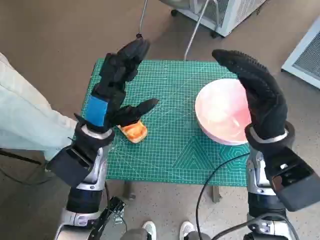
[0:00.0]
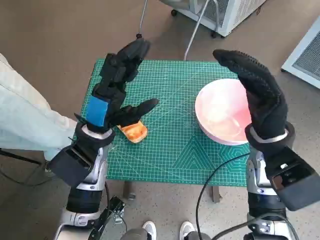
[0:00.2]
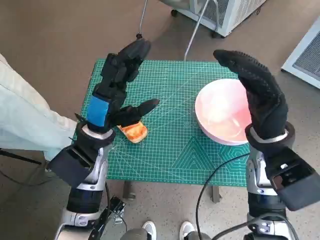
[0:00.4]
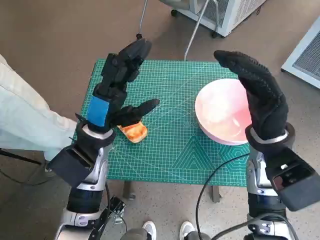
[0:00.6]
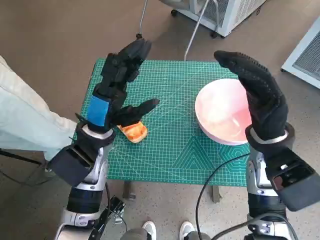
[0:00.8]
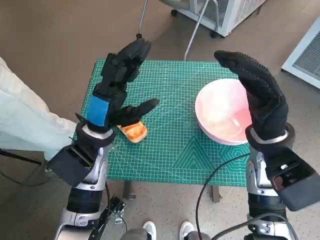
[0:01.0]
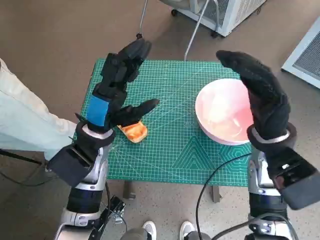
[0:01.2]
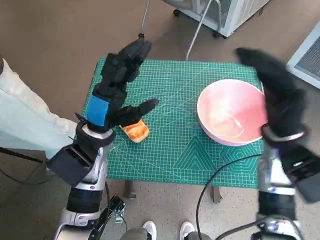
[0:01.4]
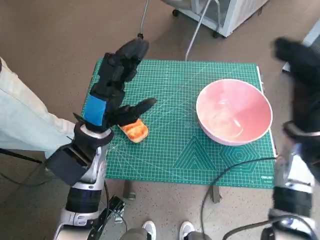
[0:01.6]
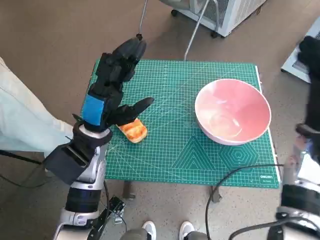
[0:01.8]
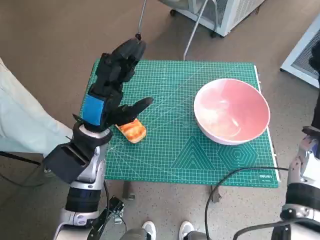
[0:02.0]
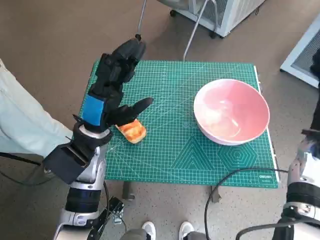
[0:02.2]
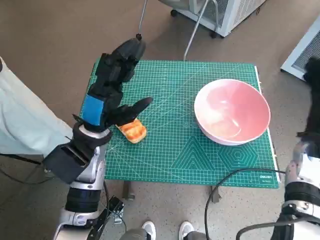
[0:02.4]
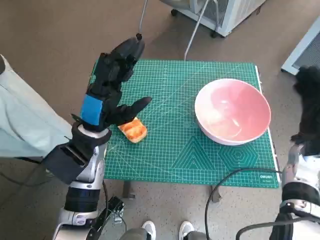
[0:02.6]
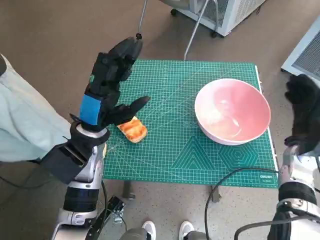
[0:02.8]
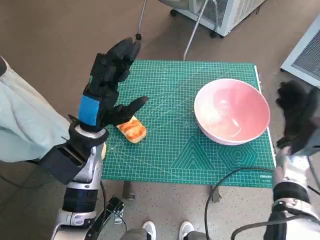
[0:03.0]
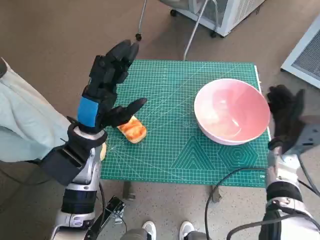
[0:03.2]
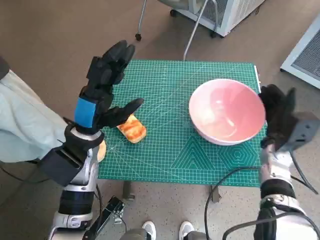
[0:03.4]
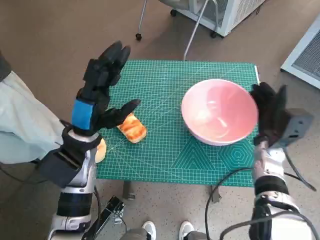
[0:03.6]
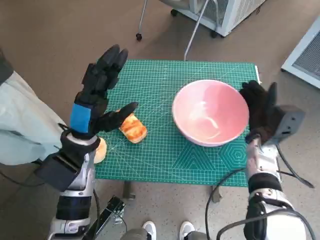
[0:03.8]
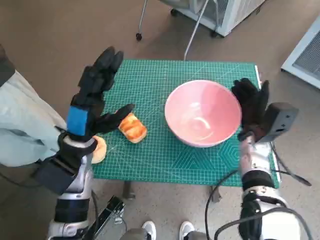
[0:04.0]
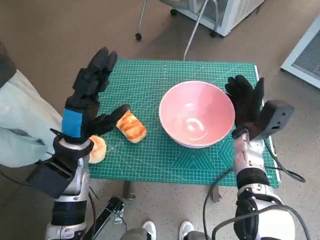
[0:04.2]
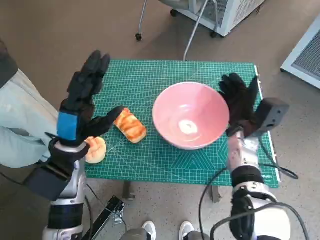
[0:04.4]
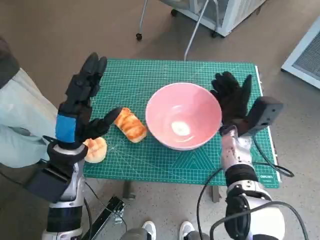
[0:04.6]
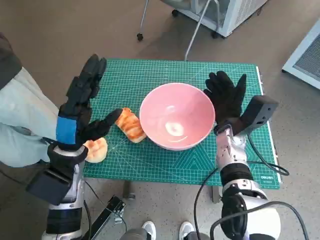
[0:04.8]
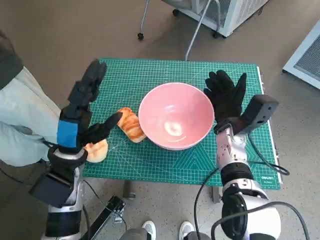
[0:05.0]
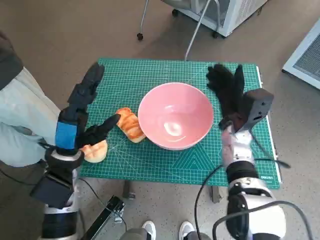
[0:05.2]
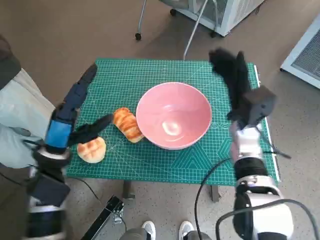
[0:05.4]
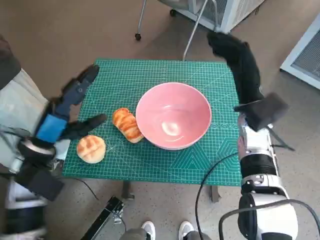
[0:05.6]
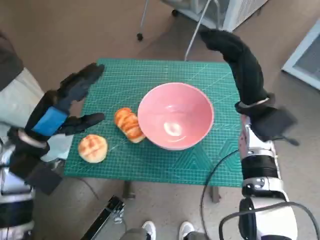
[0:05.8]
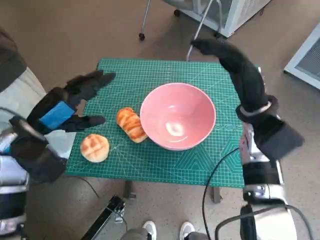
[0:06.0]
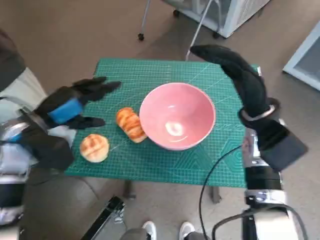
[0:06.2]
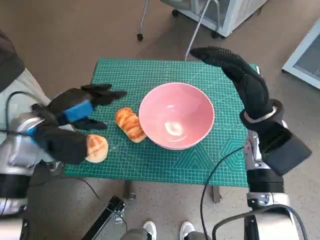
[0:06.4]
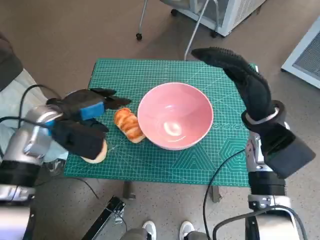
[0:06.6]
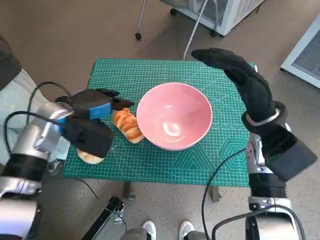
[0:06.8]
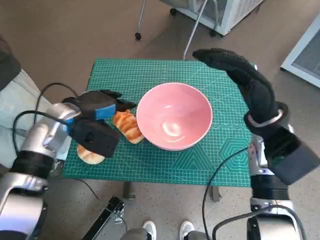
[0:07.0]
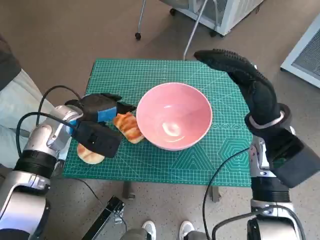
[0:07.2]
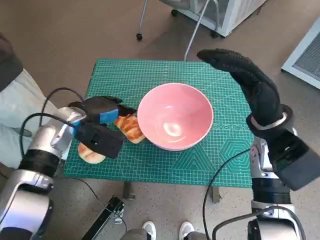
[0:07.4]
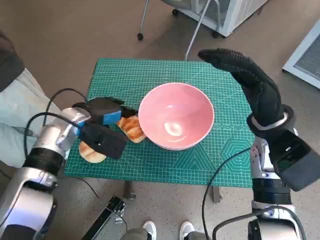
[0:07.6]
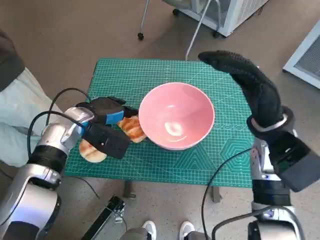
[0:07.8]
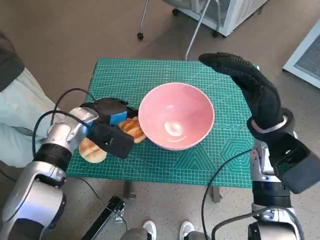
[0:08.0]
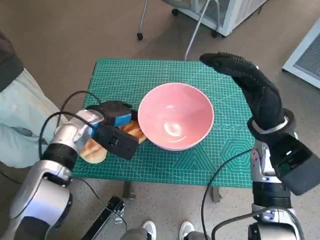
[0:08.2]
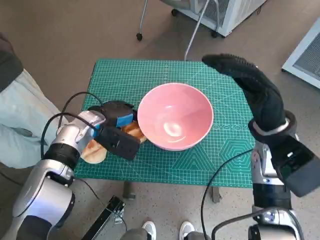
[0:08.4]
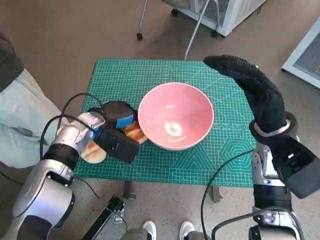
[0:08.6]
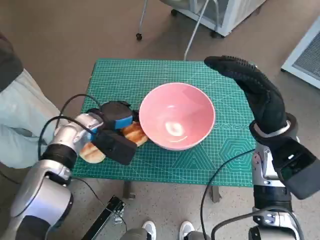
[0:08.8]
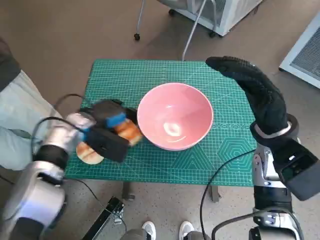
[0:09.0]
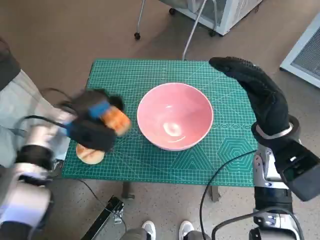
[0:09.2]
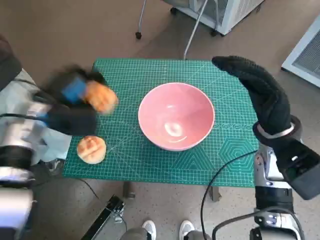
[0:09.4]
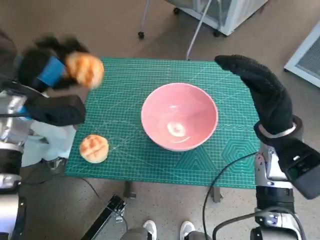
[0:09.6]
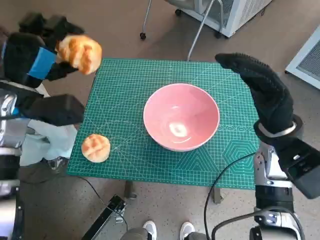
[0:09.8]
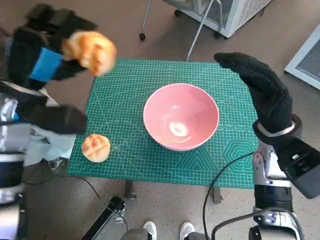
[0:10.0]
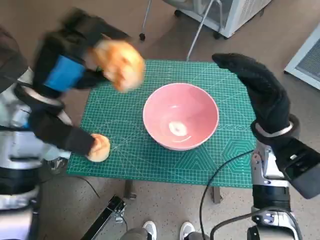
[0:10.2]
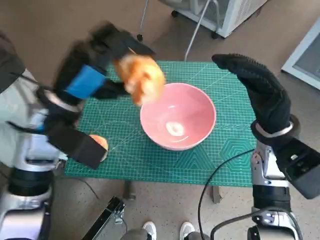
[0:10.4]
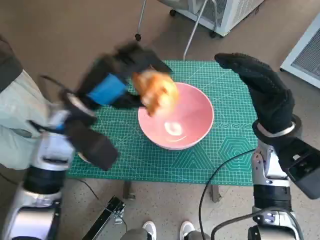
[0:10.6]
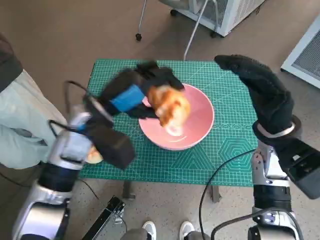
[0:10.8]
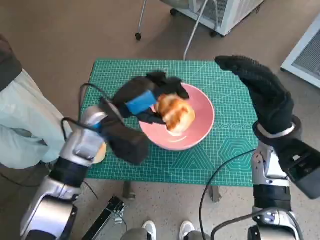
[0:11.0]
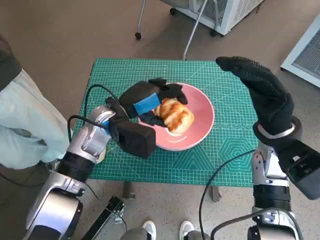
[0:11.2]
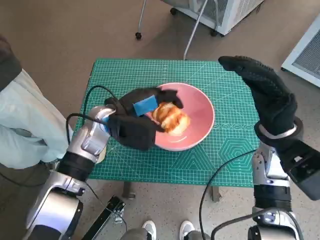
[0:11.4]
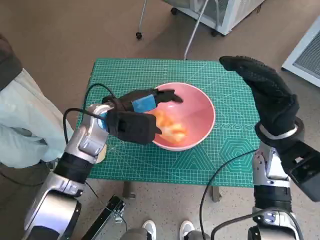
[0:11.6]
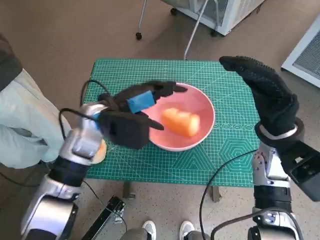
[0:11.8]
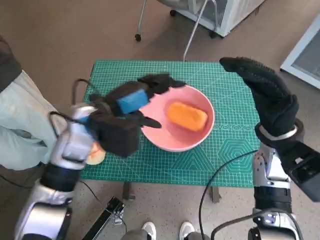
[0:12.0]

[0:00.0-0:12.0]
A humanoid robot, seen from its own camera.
Task of the whole recording: Push the bowl to the center of the table and put the bread into the bowl.
Step, 0:00.0 to 0:05.0: Move the pink bowl to the center of table with right hand.
Step, 0:05.2 to 0:08.6: Grasp the long bread with left hand.
Step, 0:08.8 to 0:11.8: Place the long bread in pink bowl with left hand.
0:01.6 to 0:03.0: The right hand goes approximately 10 cm downward.
0:03.0 to 0:04.4: The right hand moves to the left, some 10 cm.
0:04.4 to 0:06.0: The right hand goes roughly 10 cm upward. Meanwhile the left hand moves to the left, some 5 cm.
0:06.0 to 0:07.6: The left hand heads forward and to the right, covering some 10 cm.
0:09.0 to 0:10.4: The left hand goes some 15 cm upward and backward.

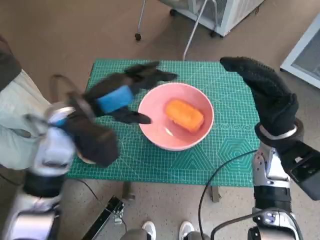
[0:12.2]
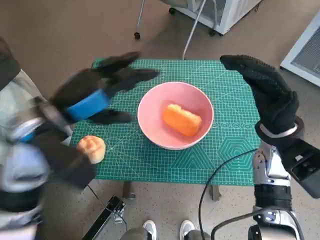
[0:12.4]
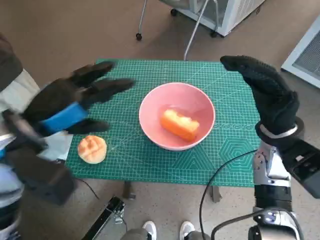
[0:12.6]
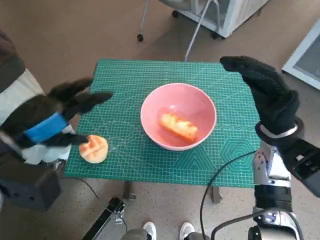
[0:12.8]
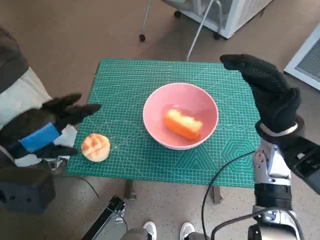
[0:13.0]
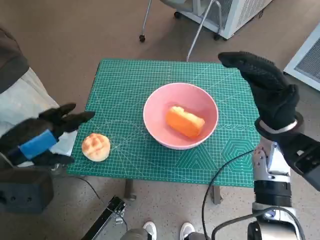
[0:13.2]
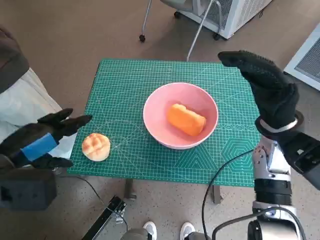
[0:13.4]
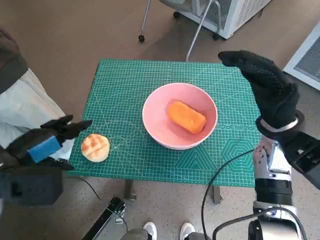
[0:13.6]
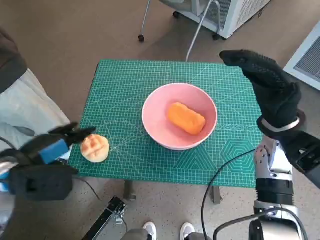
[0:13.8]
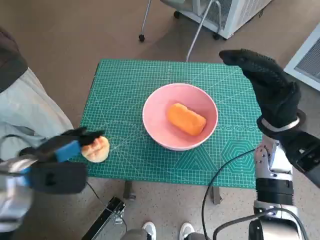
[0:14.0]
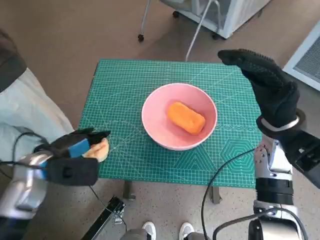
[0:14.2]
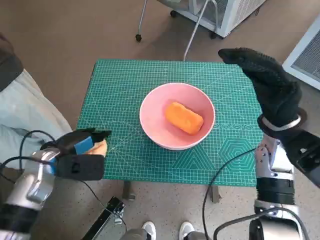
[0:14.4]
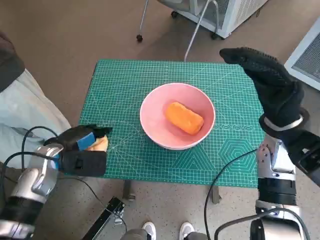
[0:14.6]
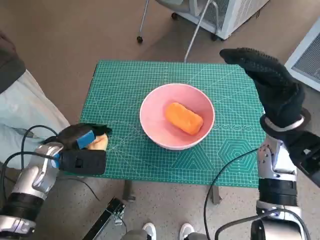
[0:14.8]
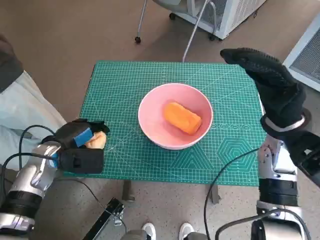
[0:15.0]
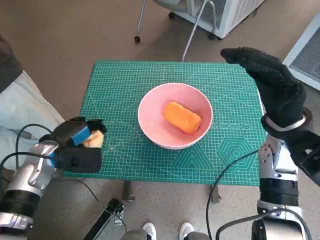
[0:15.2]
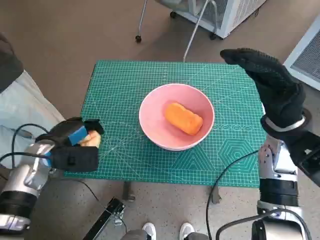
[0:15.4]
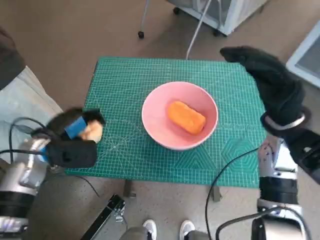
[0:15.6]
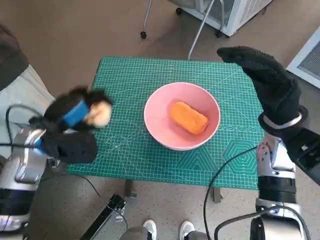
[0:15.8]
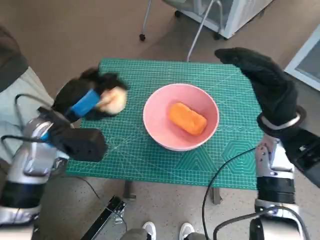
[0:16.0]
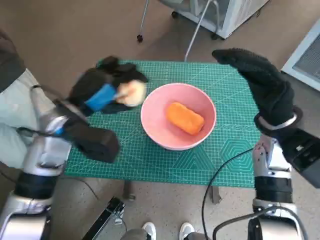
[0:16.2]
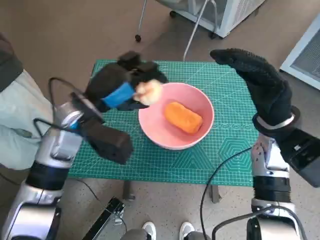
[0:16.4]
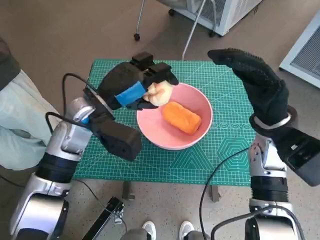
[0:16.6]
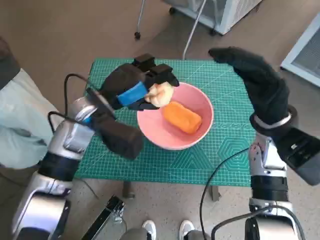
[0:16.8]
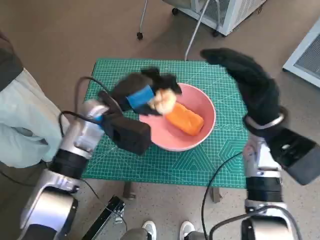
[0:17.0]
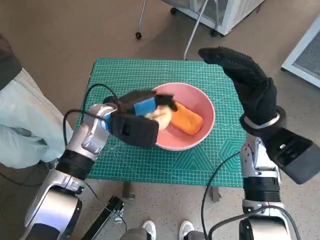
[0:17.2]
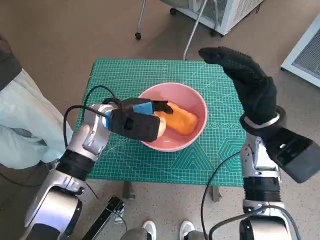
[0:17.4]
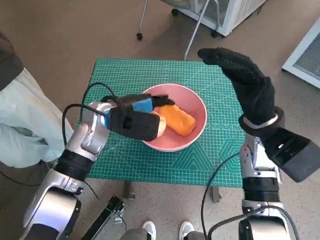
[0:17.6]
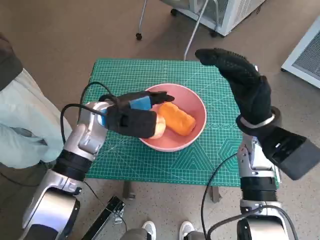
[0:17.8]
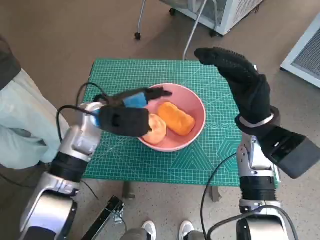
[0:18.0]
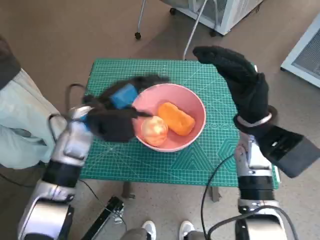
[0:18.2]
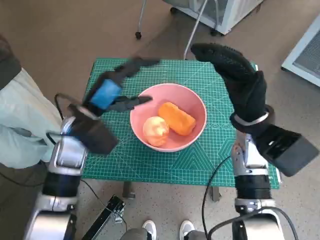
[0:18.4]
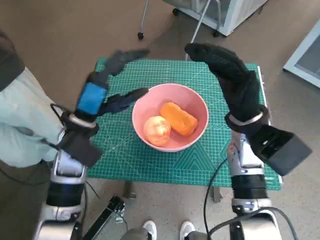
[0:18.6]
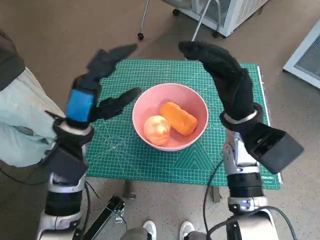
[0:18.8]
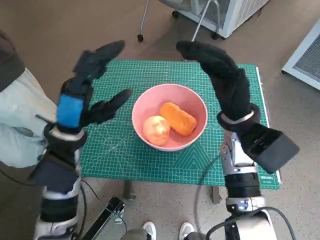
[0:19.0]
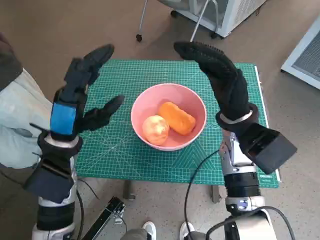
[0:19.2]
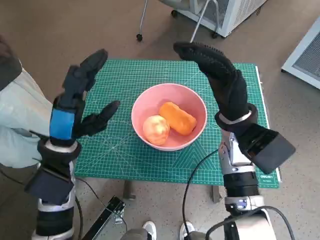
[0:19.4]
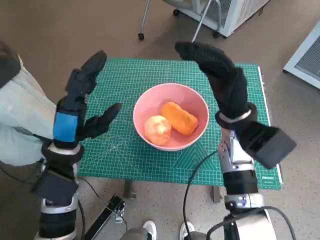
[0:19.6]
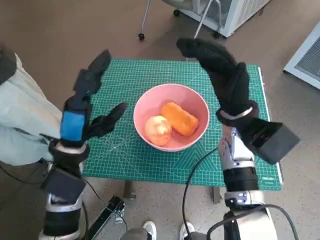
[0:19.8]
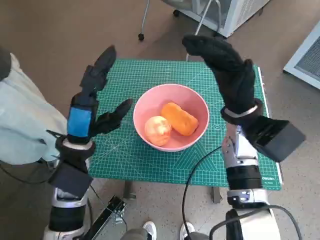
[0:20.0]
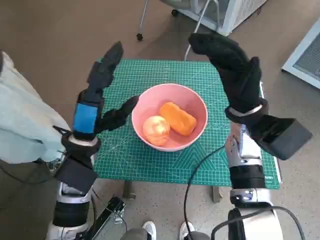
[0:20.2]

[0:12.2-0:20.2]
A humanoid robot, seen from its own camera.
Task of the whole recording: Push the bowl to the center of the table and put the bread into the bowl.
Step, 0:12.2 to 0:15.0: Grasp the round bread with left hand.
Step, 0:15.2 to 0:17.6: Place the round bread in pink bowl with left hand.
0:12.2 to 0:13.8: The left hand moves to the left and backward, roughly 15 cm.
0:13.8 to 0:15.4: The left hand goes roughly 10 cm downward and forward.
0:15.4 to 0:17.0: The left hand is displaced to the right, upward and forward by roughly 15 cm.
0:17.0 to 0:18.6: The left hand changes place by approximately 5 cm.

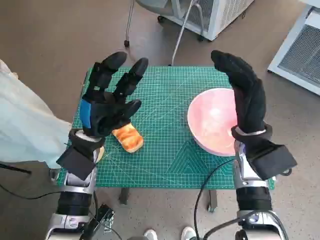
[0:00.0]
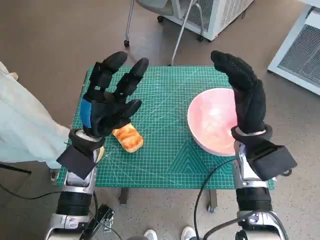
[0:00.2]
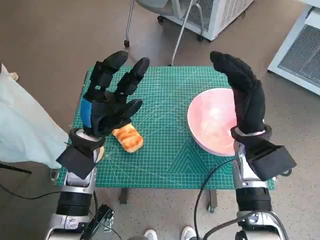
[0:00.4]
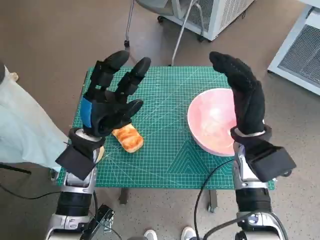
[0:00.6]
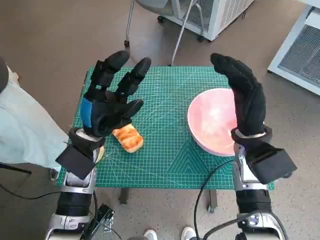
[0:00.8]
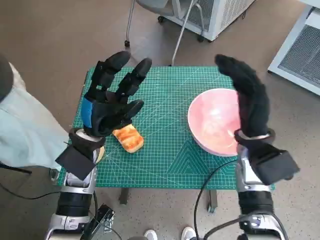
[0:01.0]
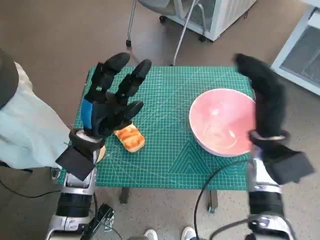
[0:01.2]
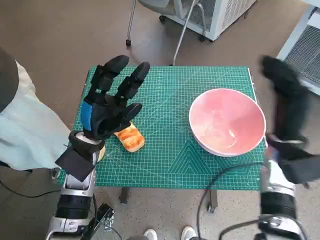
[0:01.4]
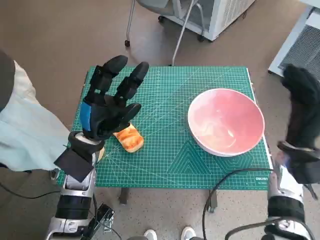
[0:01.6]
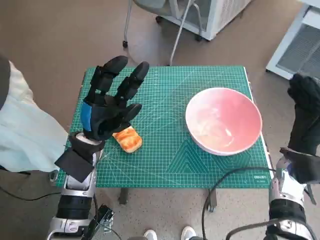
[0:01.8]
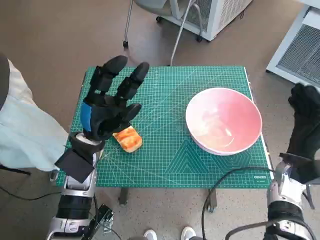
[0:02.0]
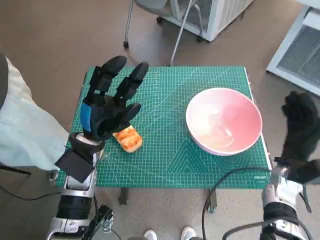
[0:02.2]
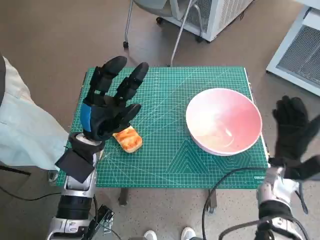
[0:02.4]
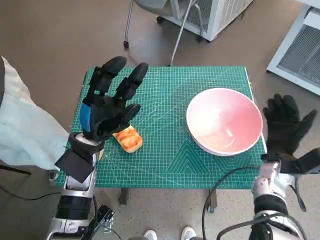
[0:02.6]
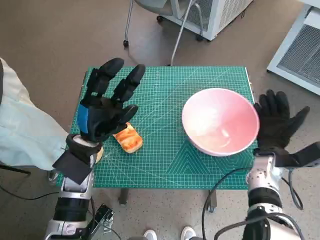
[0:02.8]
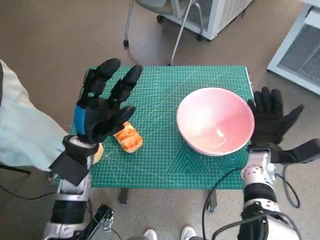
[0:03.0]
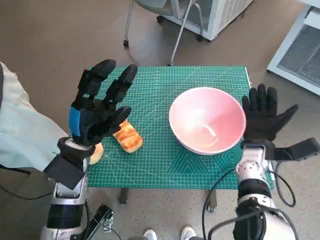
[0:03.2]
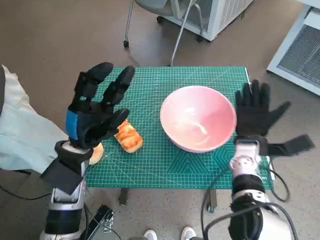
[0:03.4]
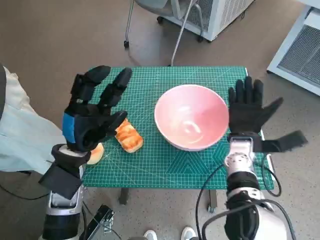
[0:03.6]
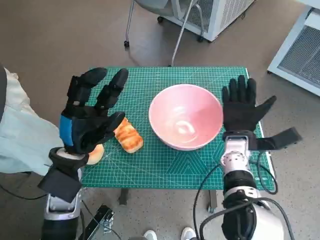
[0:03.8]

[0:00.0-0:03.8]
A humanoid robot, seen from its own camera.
Task of the whole recording: Push the bowl to the center of the table and put the bread into the bowl.
0:01.2 to 0:02.6: The right hand moves downward and to the right, about 10 cm.
0:02.6 to 0:03.8: The right hand goes some 10 cm to the left.
